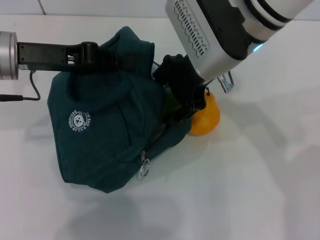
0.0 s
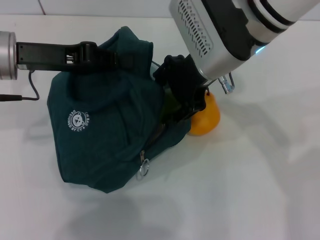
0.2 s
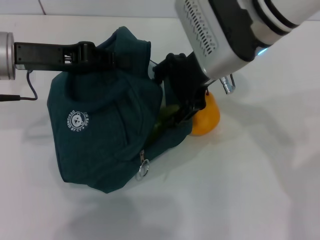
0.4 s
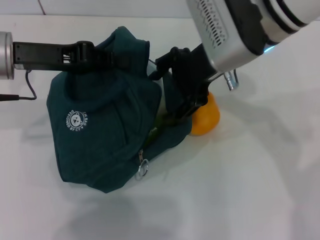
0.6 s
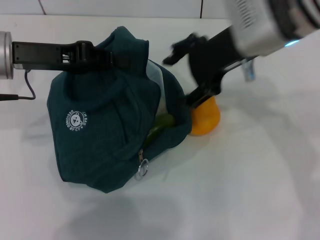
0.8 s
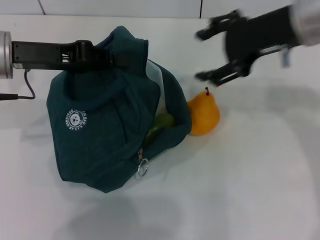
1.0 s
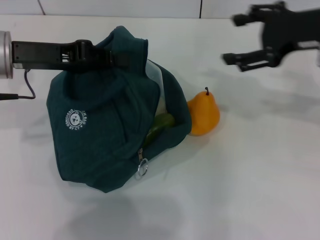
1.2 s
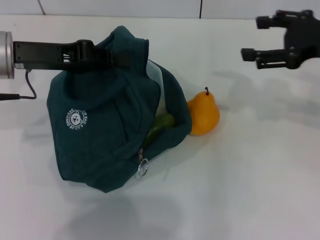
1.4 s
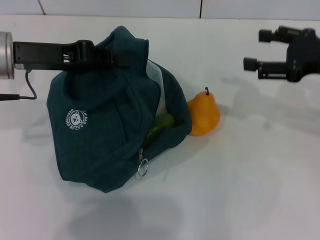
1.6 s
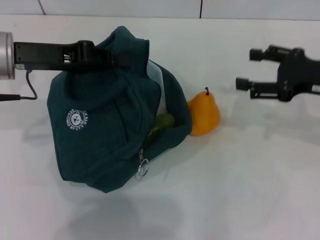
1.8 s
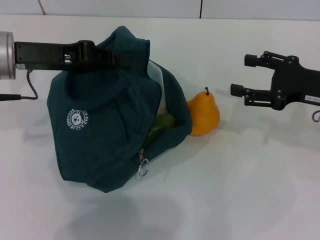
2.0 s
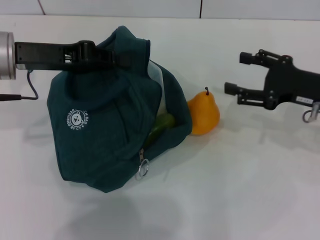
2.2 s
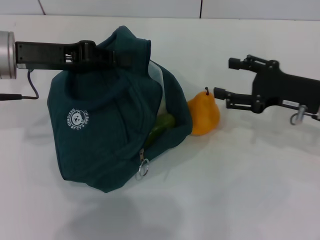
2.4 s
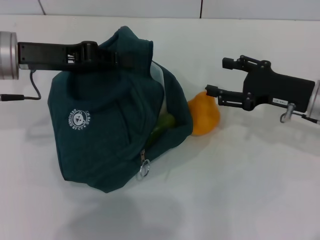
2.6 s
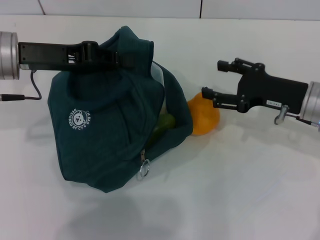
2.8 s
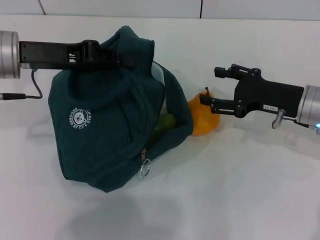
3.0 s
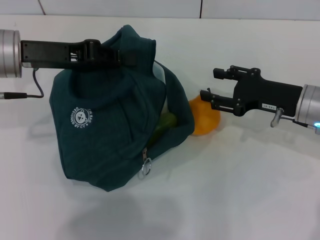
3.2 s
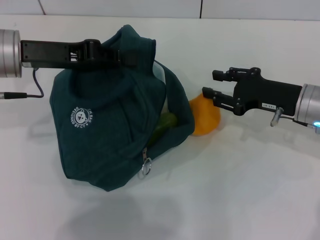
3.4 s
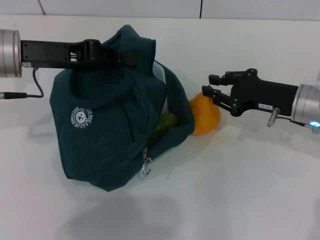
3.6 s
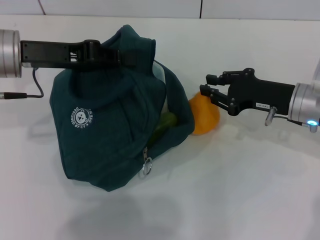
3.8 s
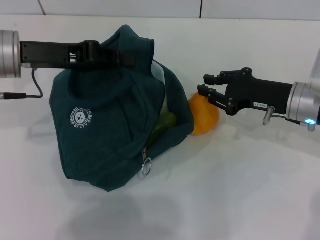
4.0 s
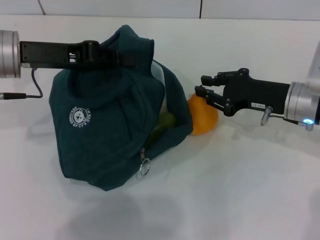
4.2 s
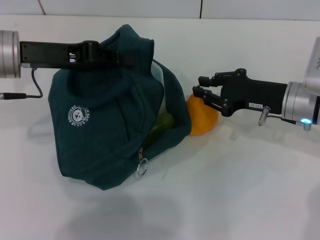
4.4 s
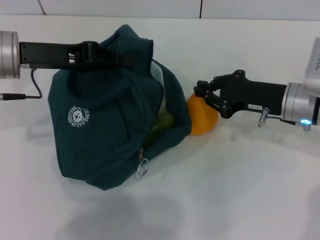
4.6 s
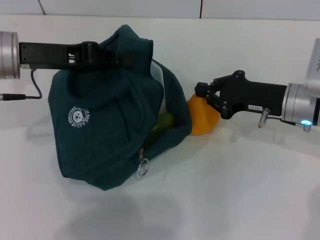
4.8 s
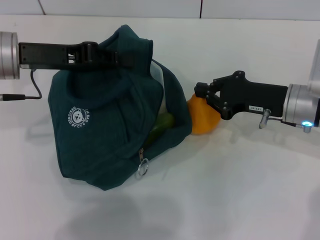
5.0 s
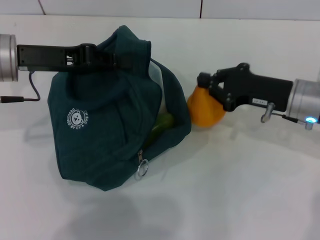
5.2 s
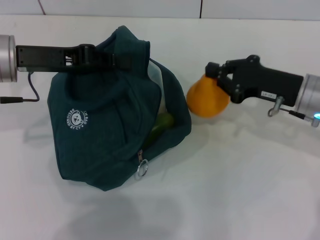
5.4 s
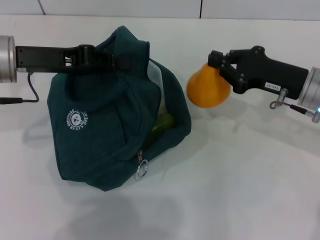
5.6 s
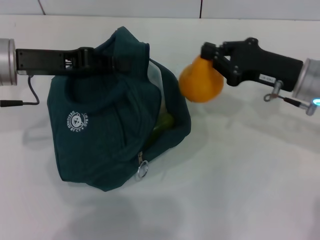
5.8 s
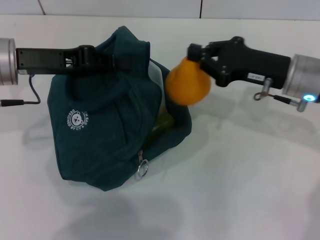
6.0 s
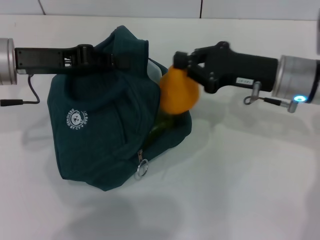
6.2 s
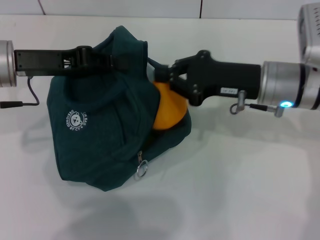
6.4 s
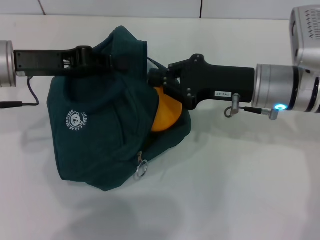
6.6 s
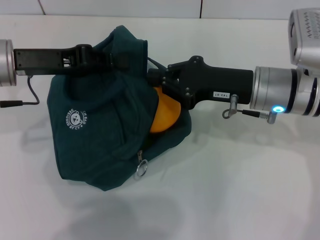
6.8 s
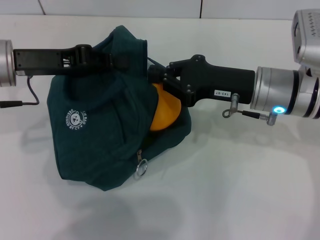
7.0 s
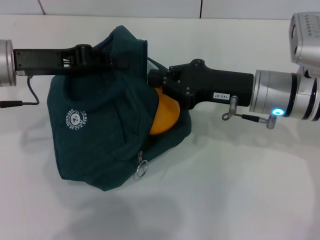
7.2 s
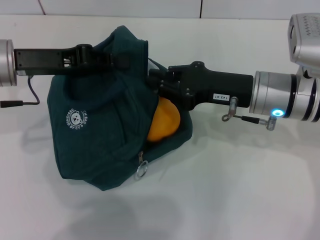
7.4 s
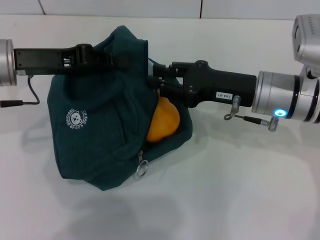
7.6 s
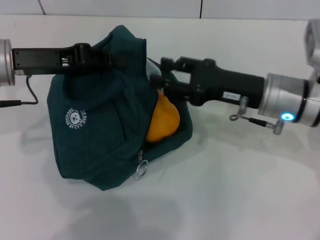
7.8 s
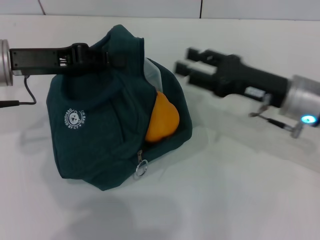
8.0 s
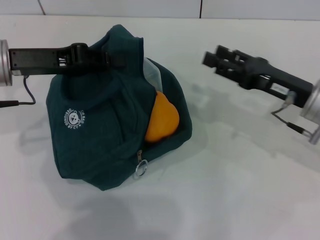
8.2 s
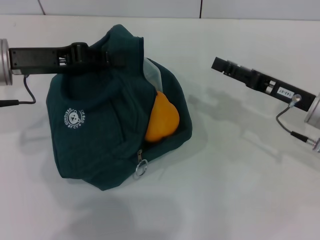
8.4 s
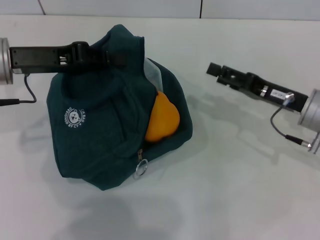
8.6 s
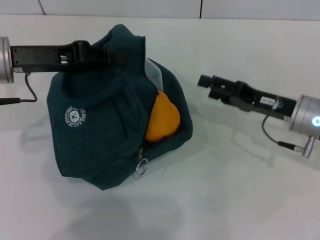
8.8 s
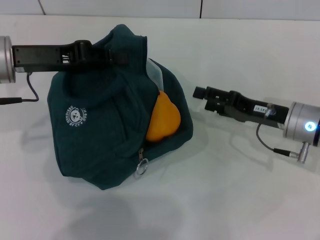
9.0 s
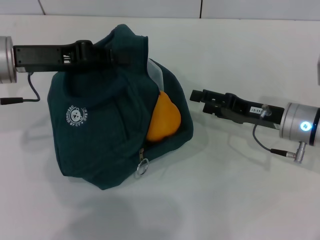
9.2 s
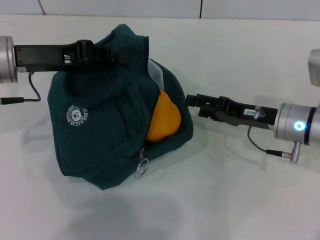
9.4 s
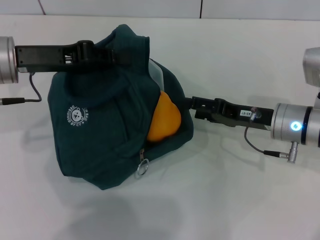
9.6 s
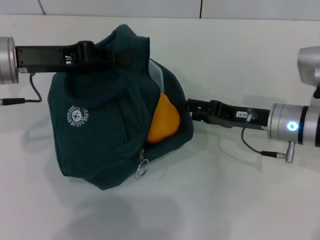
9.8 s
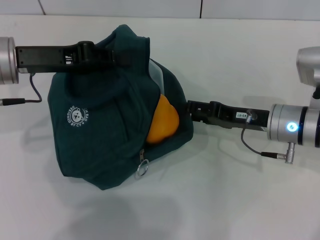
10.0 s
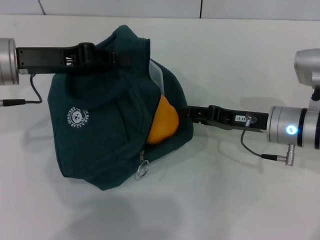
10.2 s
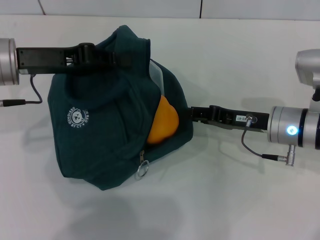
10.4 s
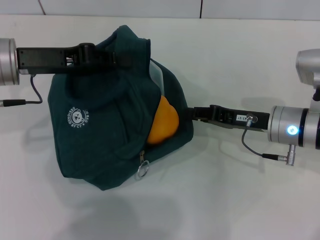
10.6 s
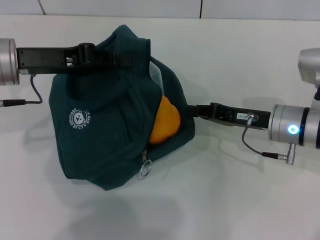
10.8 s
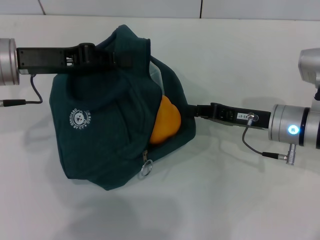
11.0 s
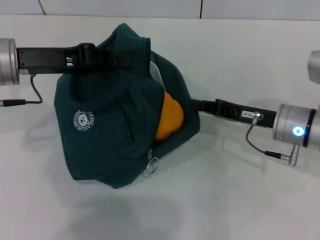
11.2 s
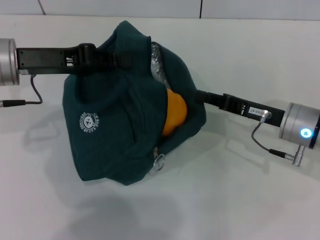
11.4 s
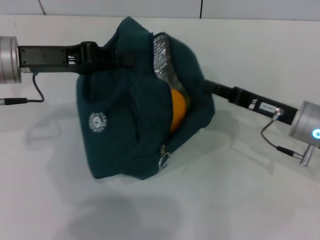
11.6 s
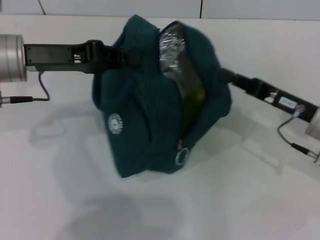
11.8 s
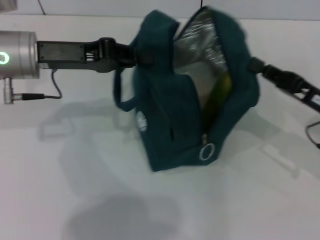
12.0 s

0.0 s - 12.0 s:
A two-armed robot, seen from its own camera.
Step, 0.6 s - 4.8 s: Grab the pear with your right hand.
0.0 s - 1.6 s: The right gripper shifts some 20 cm to the right.
1.6 s - 3.0 s: The right gripper is displaced downward and to the left by approximately 10 cm.
3.0 s - 4.4 s: The right gripper closes.
4.4 s - 6.0 s: There are only small adjustments of the grippers.
6.0 s - 7.6 s: There are only small adjustments of the grippers.
7.6 s - 9.0 s: The right gripper travels to the right and downward by roughly 10 cm, and opens.
9.0 s - 10.4 s: The right gripper closes up.
10.4 s - 12.0 s: The right gripper moves to the right, some 10 cm, and closes up.

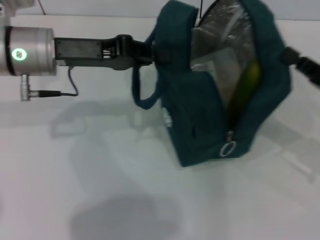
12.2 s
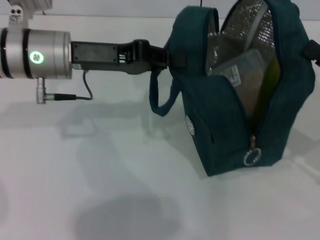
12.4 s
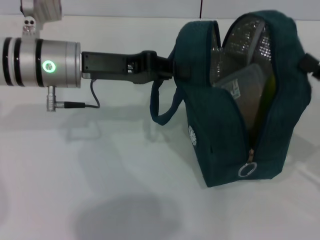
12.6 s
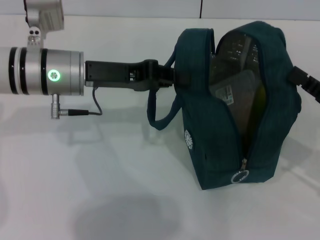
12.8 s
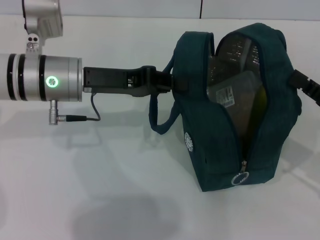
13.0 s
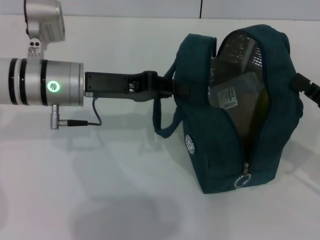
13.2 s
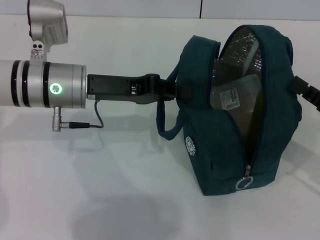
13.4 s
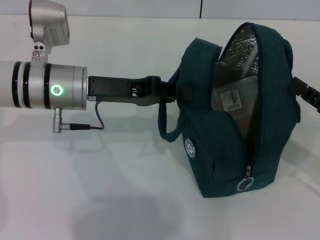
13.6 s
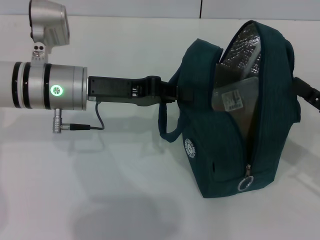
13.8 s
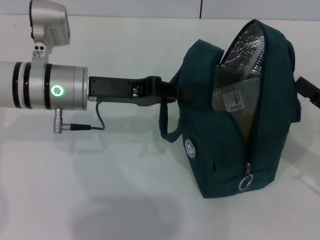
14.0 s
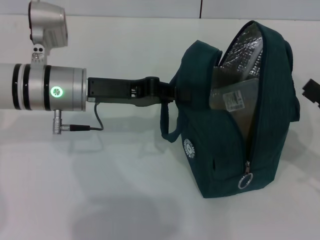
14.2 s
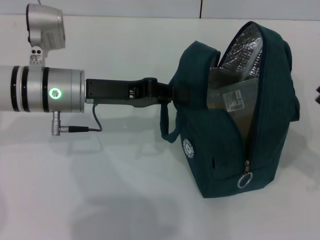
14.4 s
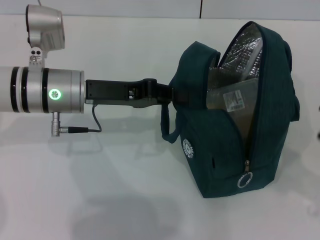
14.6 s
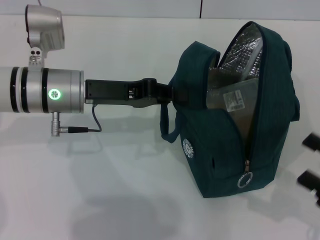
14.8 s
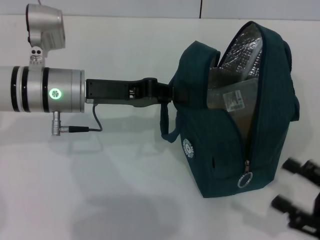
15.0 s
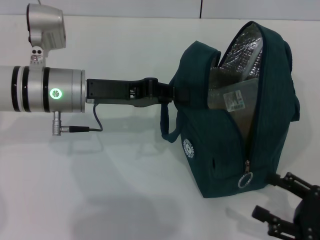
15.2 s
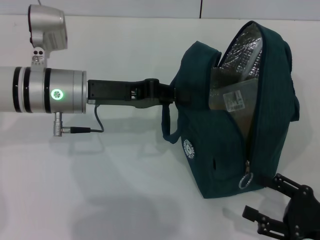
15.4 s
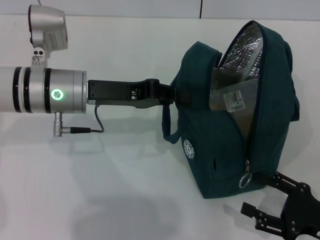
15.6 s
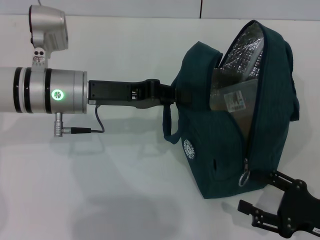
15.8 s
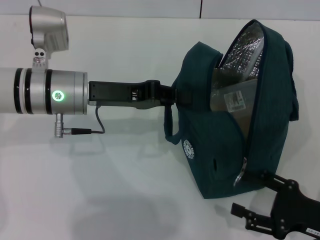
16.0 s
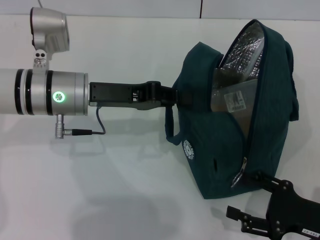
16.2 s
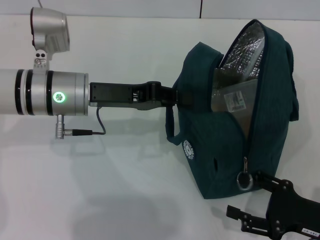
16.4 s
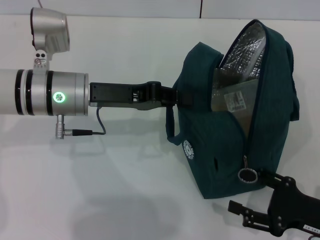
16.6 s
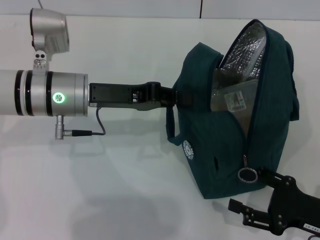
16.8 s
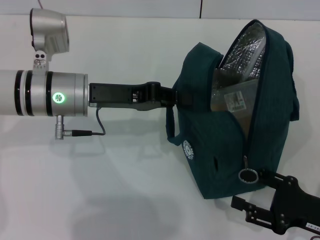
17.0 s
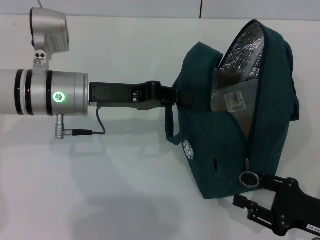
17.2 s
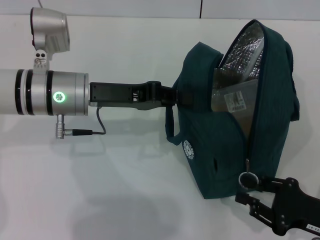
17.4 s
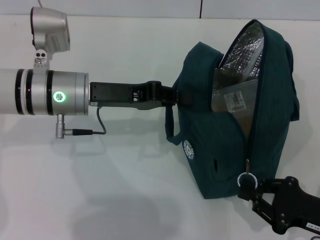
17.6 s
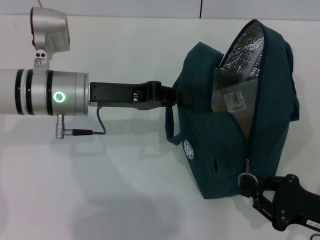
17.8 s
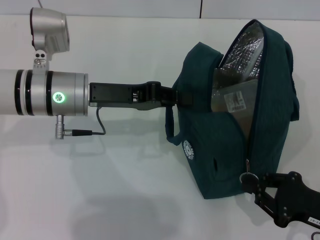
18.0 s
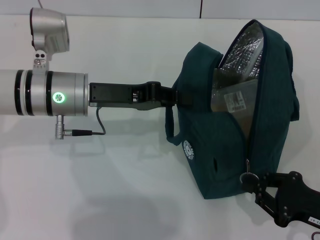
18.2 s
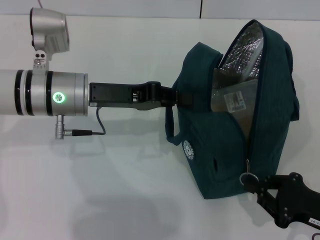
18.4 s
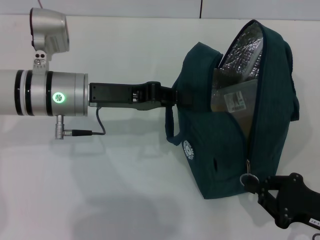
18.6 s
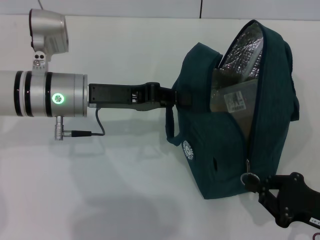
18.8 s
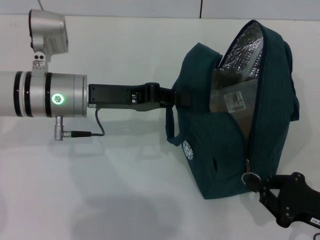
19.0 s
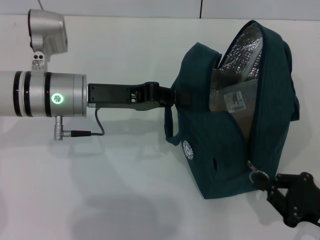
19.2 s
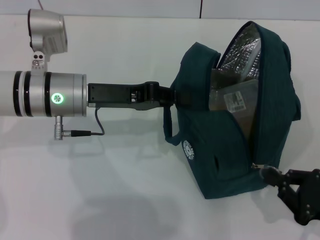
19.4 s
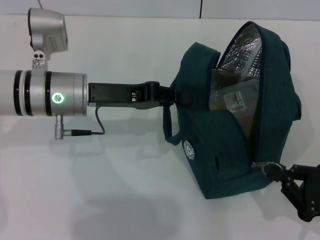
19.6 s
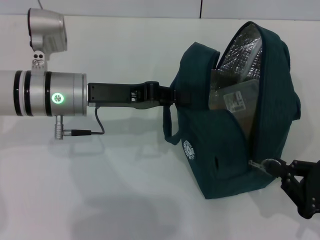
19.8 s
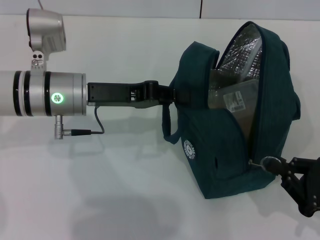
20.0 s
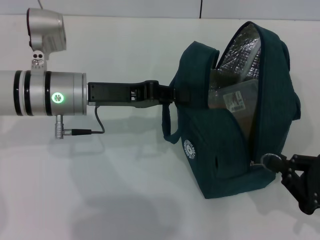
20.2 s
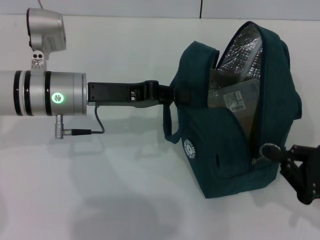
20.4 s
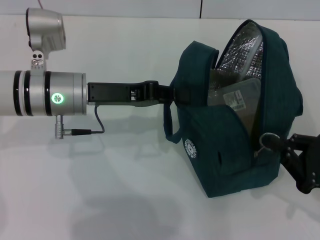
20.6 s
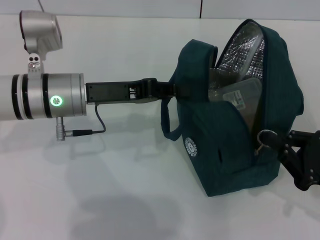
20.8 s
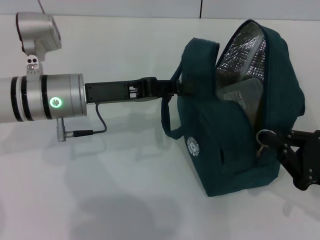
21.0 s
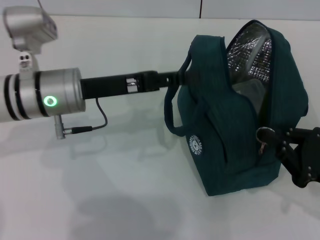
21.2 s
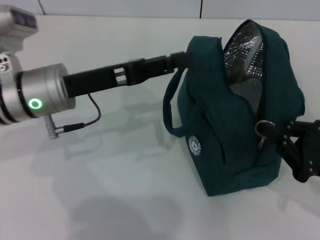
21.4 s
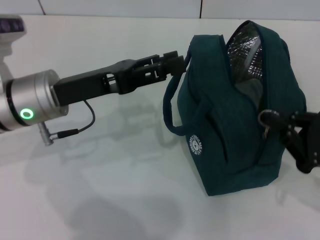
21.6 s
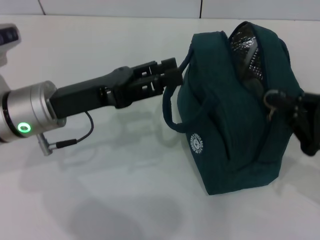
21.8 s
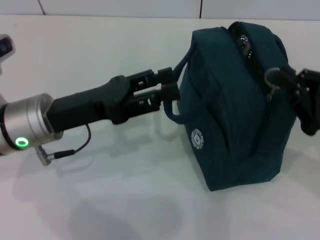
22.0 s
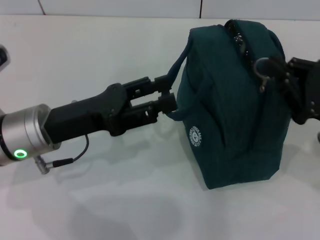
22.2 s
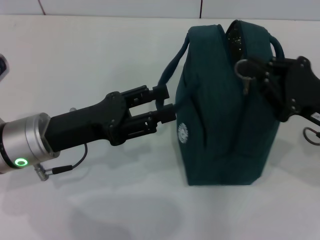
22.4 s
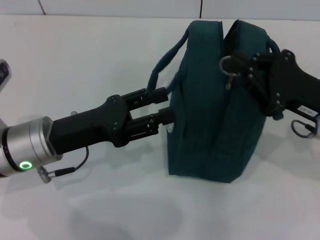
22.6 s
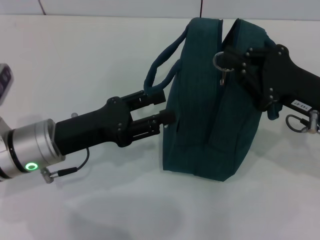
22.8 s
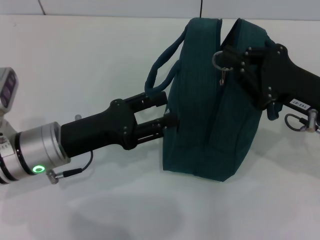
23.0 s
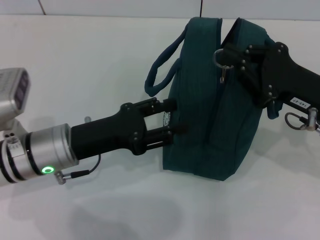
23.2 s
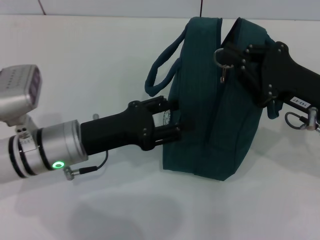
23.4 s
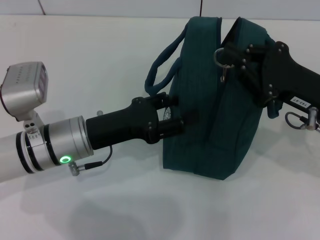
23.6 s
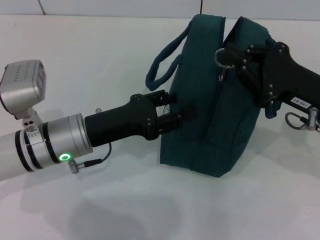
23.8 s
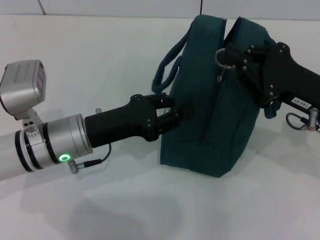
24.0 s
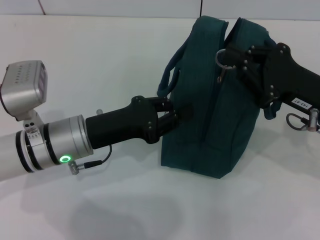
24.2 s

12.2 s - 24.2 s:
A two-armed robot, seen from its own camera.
Step, 12.2 s - 14.2 s: Hold the lunch bag with your right hand.
Step, 14.4 s - 21.8 s: Hold the lunch bag with your left hand.
12.2 s - 13.8 s: The left gripper shifts by roughly 5 cm.
13.8 s - 15.2 s: The right gripper is displaced backward and downward by approximately 10 cm, and opens.
15.2 s - 16.6 s: The grippers move only a little.
16.6 s - 18.2 s: The right gripper closes up.
18.2 s - 19.8 s: The grippers make only small movements.
21.2 s - 22.6 s: The right gripper shifts roughly 10 cm forward, upward and to the left. Meanwhile the left gripper is displaced backward by about 5 cm, and opens.
22.6 s - 24.2 s: The left gripper closes up.
